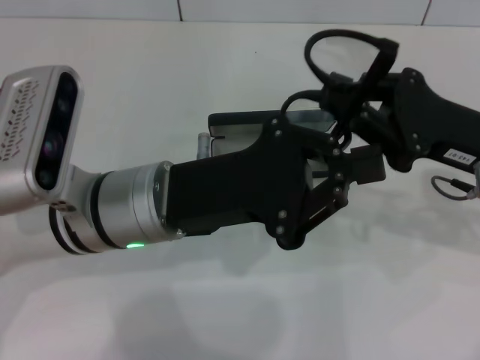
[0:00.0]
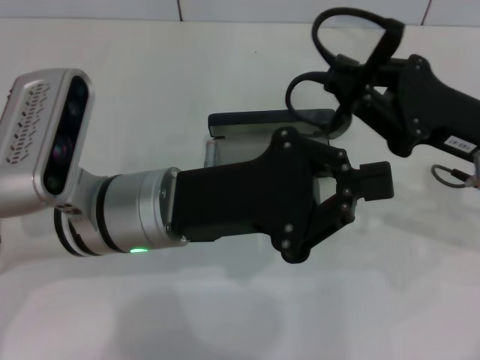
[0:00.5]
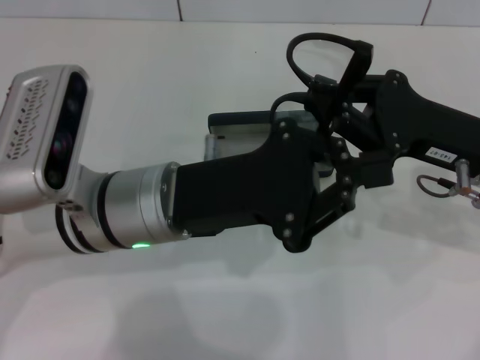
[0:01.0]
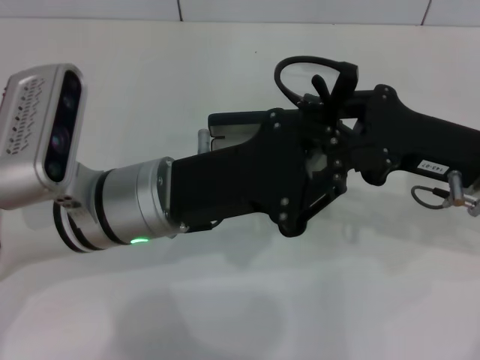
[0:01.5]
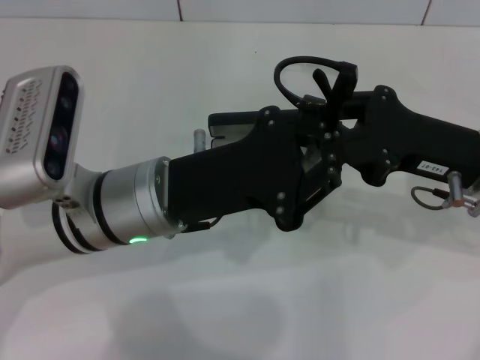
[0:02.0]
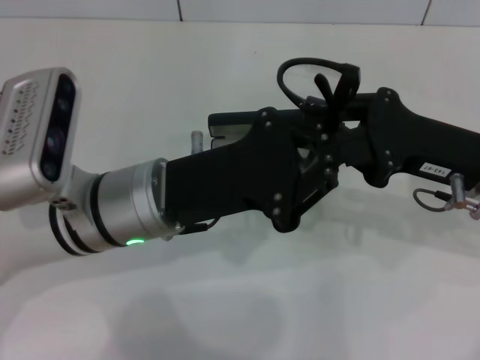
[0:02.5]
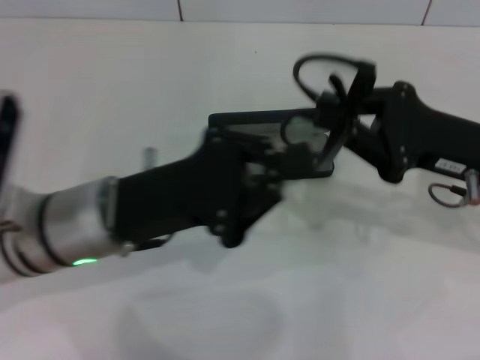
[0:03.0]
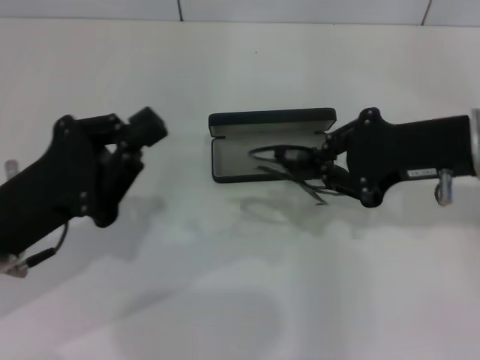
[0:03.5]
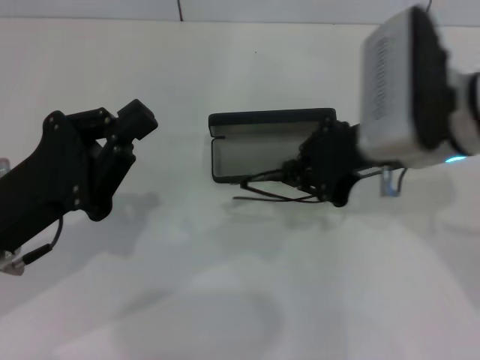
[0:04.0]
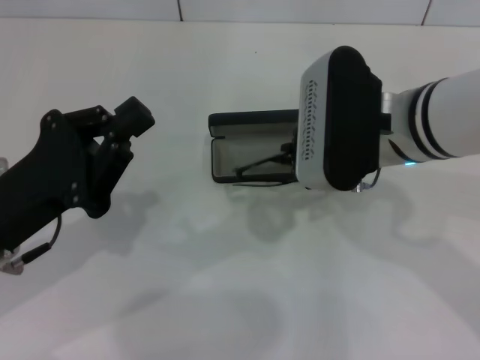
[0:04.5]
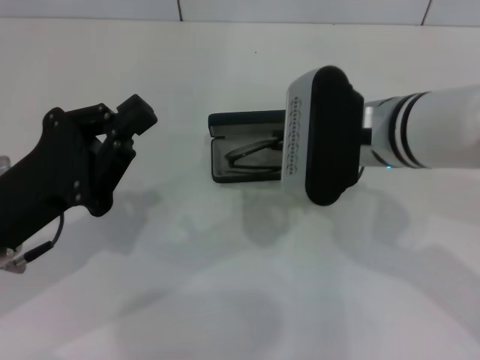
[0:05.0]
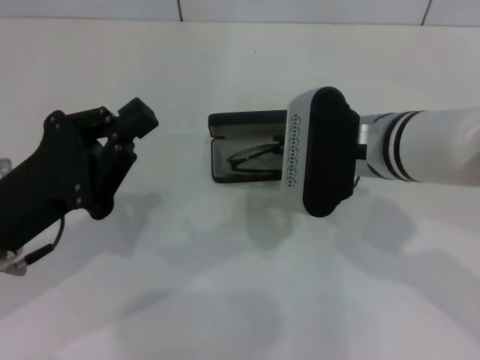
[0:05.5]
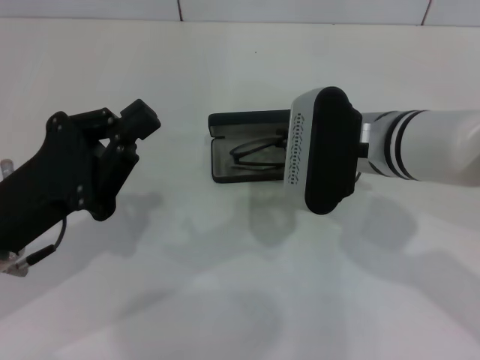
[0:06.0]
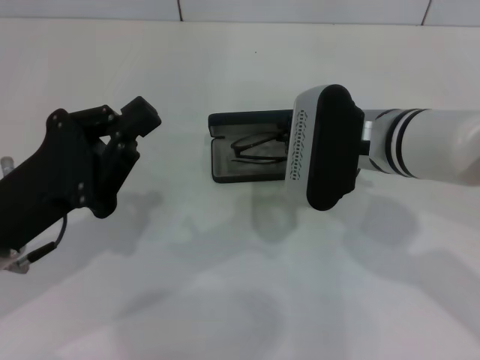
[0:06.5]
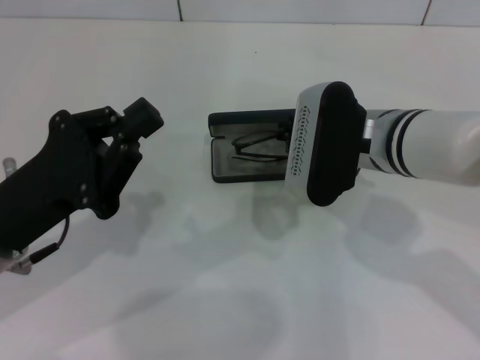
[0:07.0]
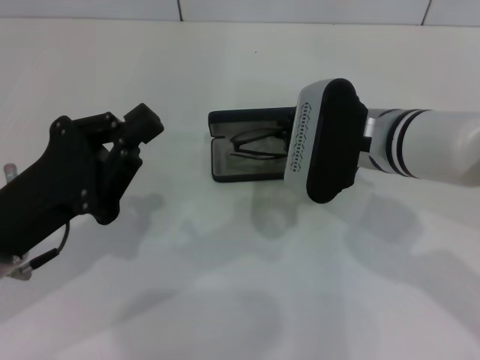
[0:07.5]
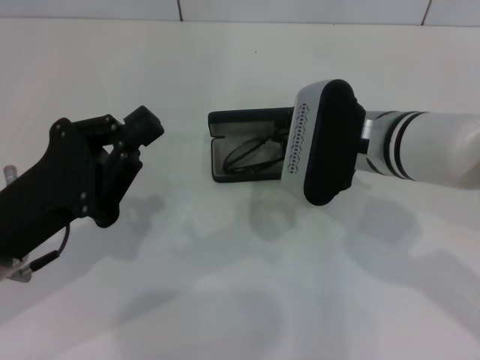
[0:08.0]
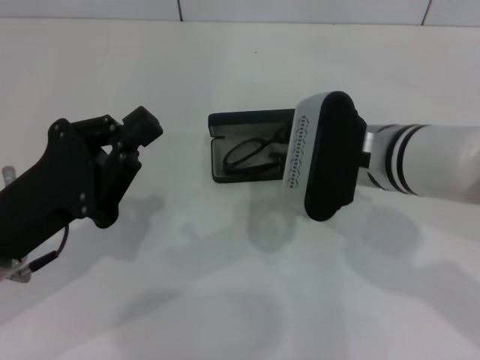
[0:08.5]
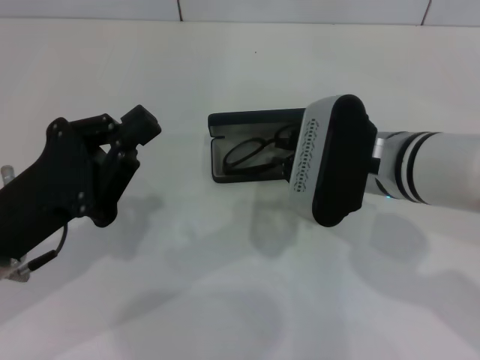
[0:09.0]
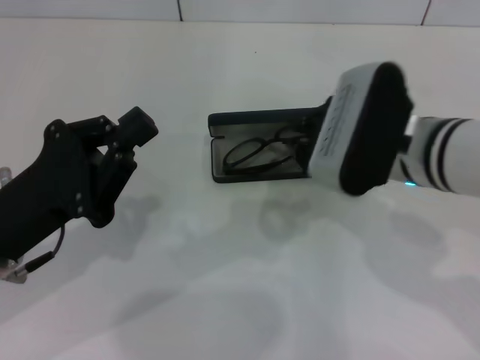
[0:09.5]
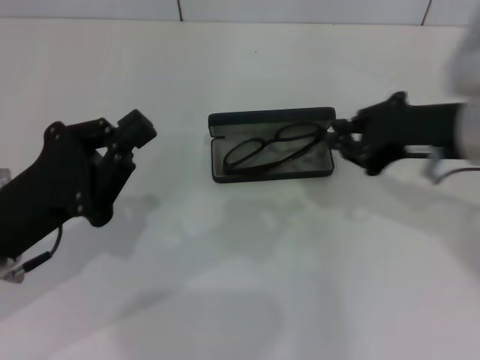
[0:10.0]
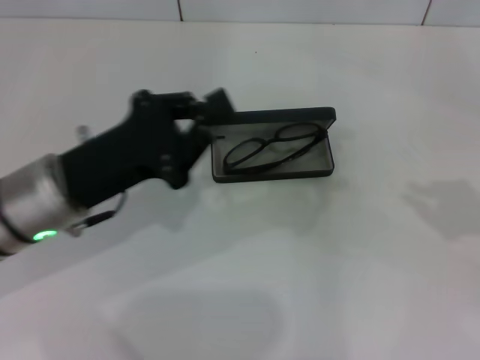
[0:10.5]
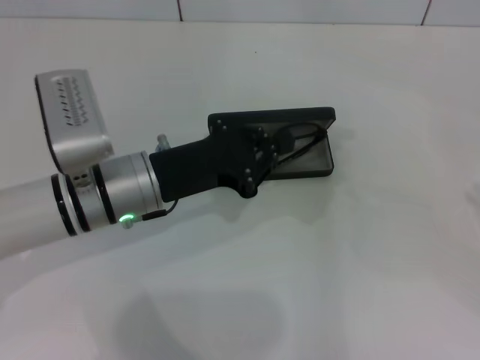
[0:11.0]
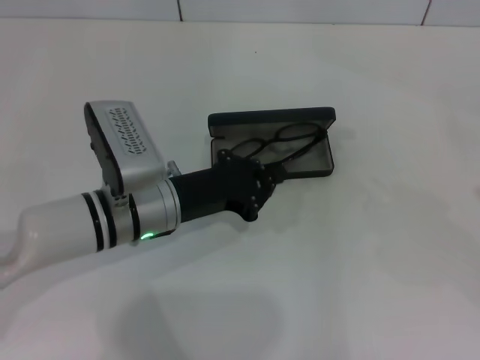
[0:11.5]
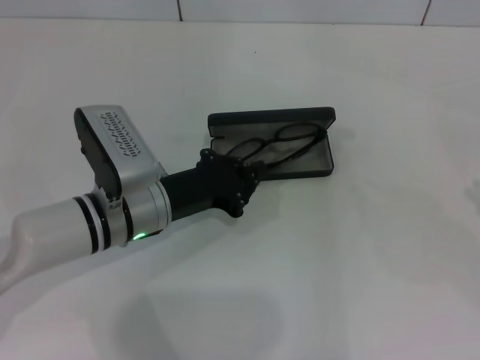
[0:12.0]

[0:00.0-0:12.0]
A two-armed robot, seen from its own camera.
Step, 0:00.0 to 0:02.0: Fold the frame with your left hand.
Step, 0:02.5 to 0:08.0: Put the glasses into the case with your right hand.
0:00.0 to 0:02.0: The grippers make only small movements.
0:02.0 to 0:04.0: The left gripper moves to the left, approximately 10 cm, while the right gripper heads to the left and upward, covering roughly 10 cm.
0:04.0 to 0:06.0: The right gripper travels downward by roughly 5 cm.
0:06.0 to 0:08.0: The grippers move only a little.
0:08.0 to 0:10.0: The right gripper is displaced to the right and upward by some 10 cm.
0:10.0 to 0:12.0: The right gripper shifts approximately 25 cm to the right and backward. The left gripper heads to the right, forward and downward, covering about 15 cm.

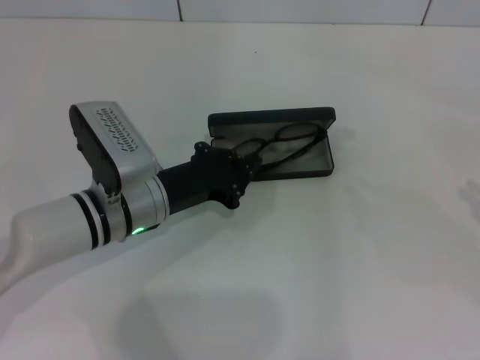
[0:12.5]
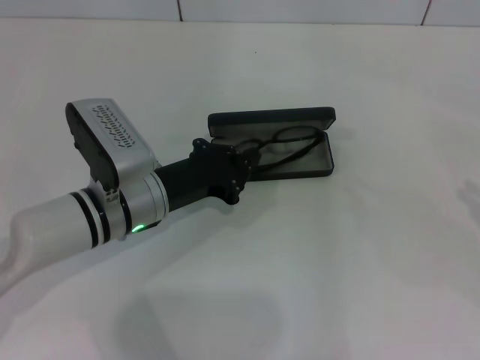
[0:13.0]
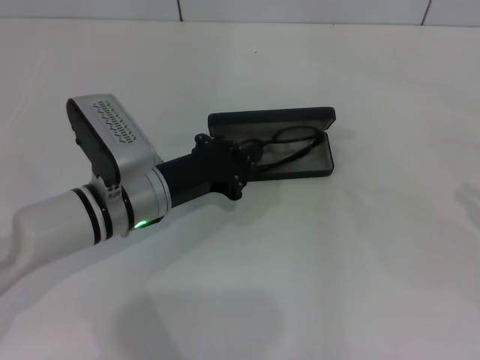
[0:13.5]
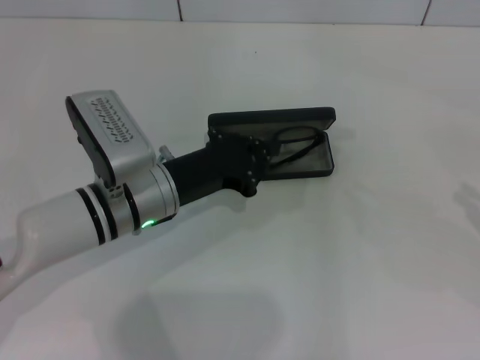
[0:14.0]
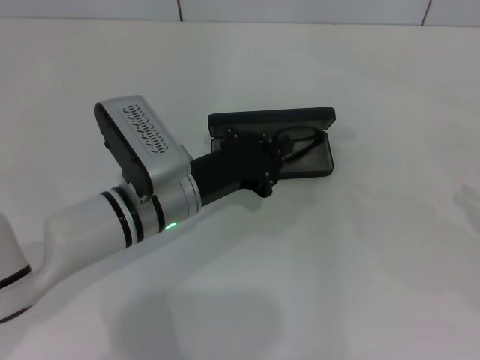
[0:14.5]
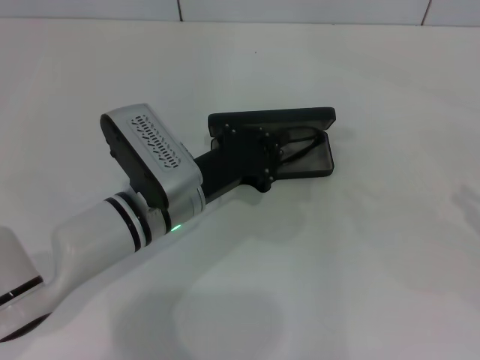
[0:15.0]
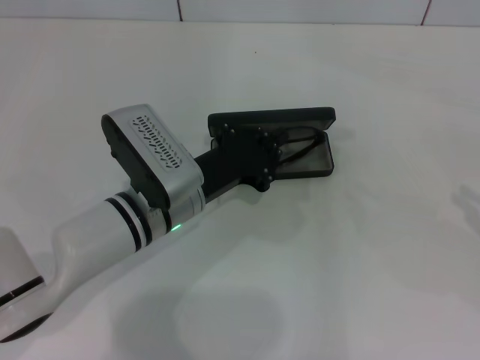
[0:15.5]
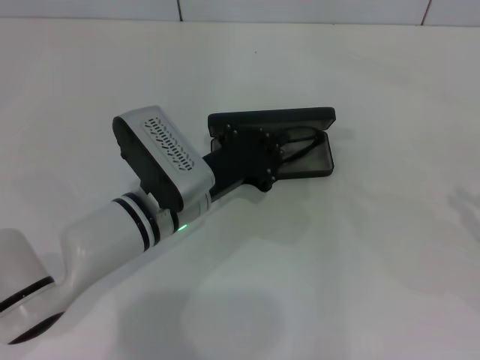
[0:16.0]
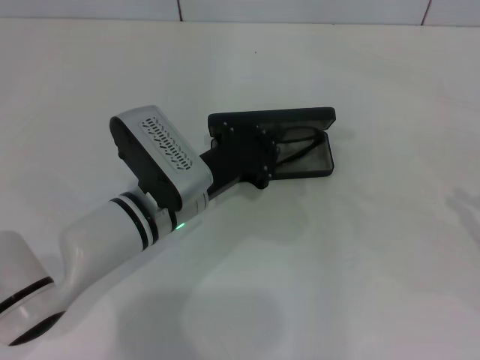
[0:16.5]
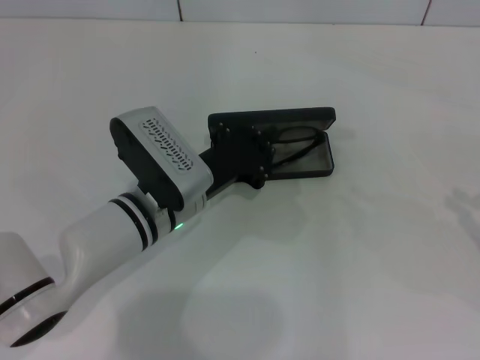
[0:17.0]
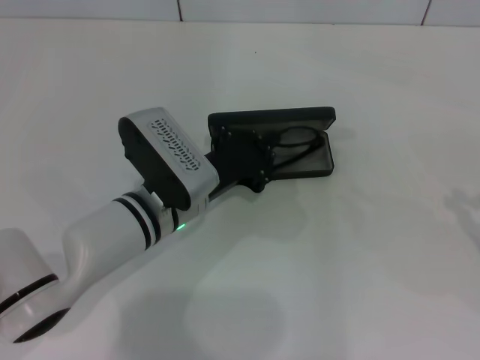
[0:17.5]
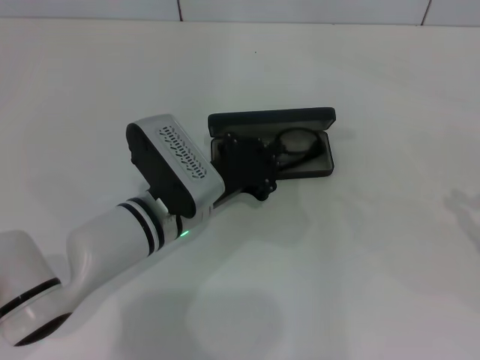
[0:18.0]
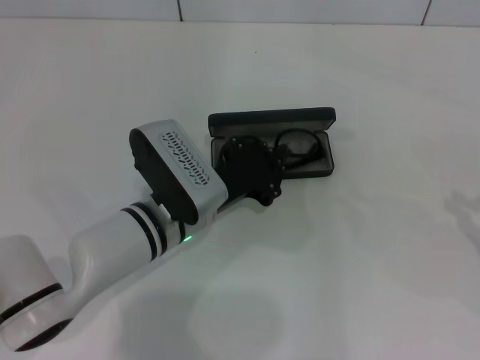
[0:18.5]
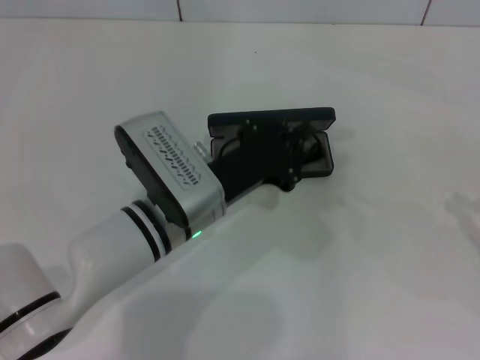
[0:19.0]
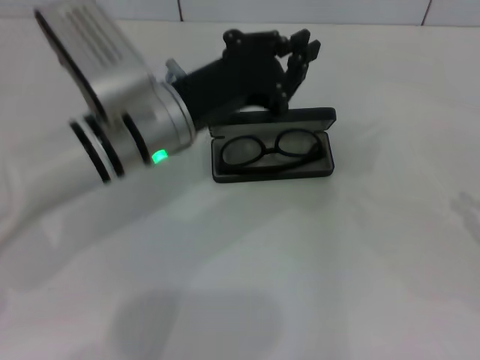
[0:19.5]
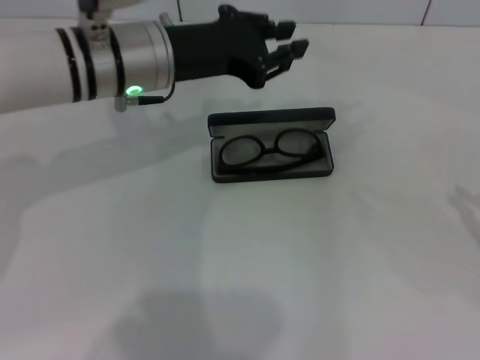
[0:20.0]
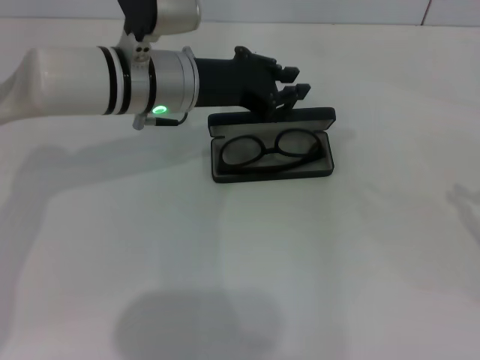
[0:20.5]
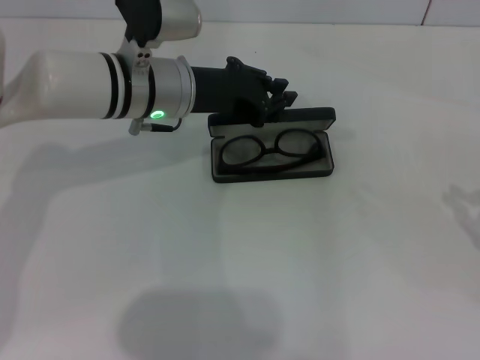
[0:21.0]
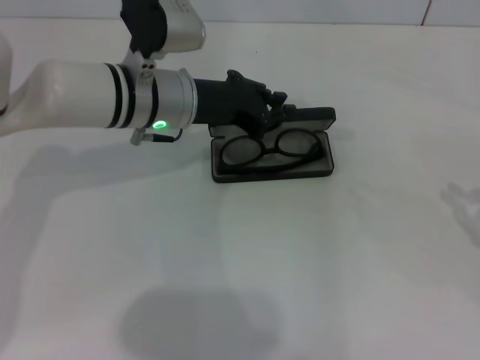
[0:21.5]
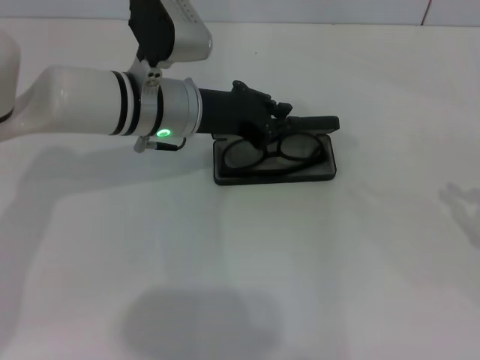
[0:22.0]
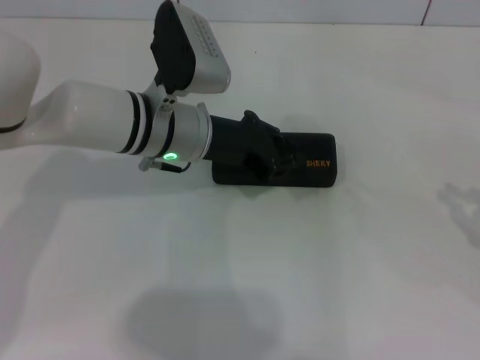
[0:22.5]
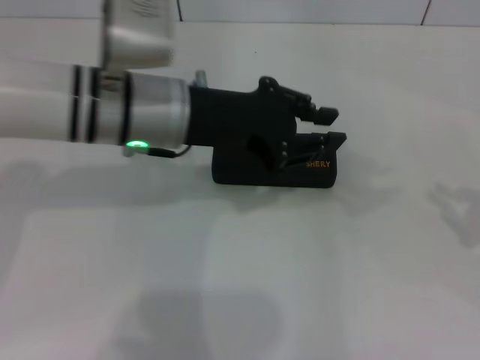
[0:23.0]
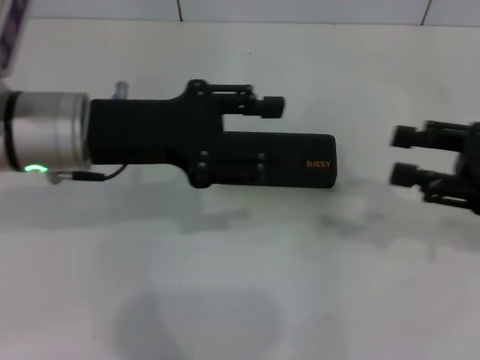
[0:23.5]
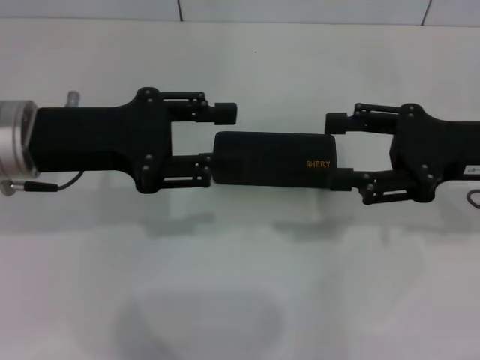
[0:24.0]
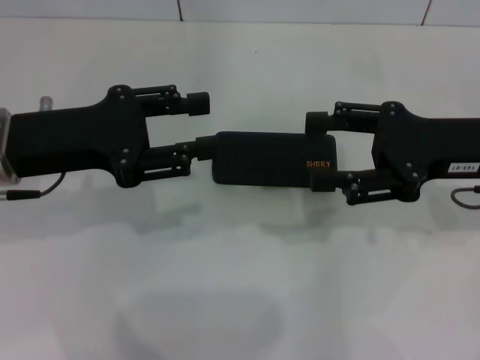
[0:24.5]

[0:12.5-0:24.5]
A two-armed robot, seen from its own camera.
Step, 0:12.5 to 0:23.0: Close the glasses case with your left hand.
0:12.5 to 0:16.5: The grippers stay close to where they were, moving slightly.
0:16.5 to 0:18.5: Both grippers stay put.
0:18.5 to 0:20.5: The left gripper heads upward and forward, covering about 15 cm, and opens up.
0:20.5 to 0:22.5: There are only small adjustments of the grippers.
0:22.5 to 0:24.5: The left gripper goes roughly 15 cm to the left, backward and upward, and opens. Meanwhile the right gripper shifts roughly 20 cm to the left and forward, and opens its fingers.
